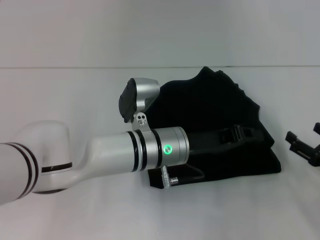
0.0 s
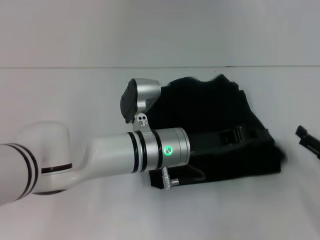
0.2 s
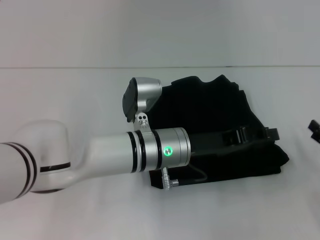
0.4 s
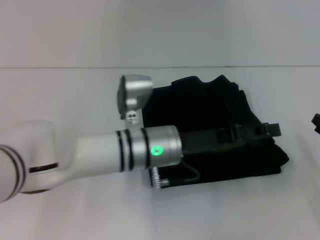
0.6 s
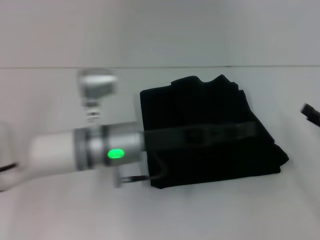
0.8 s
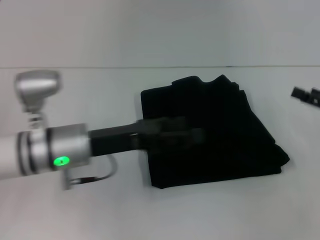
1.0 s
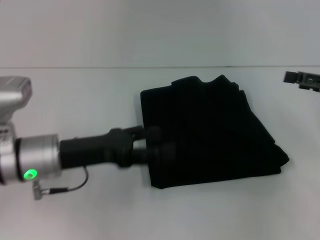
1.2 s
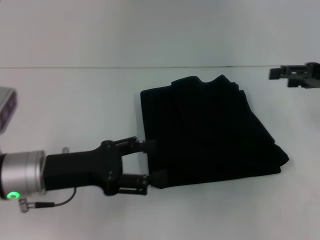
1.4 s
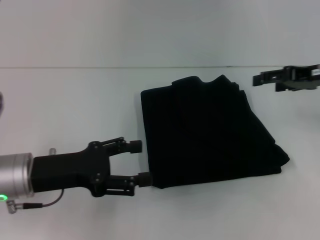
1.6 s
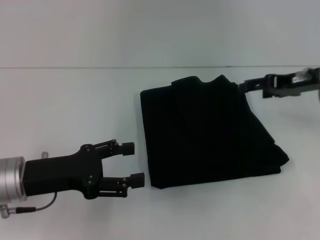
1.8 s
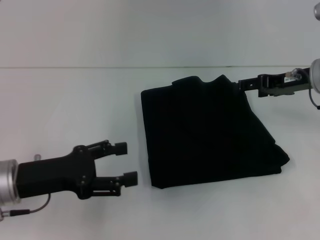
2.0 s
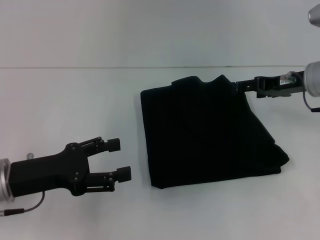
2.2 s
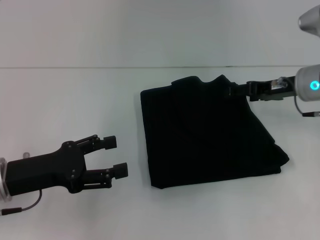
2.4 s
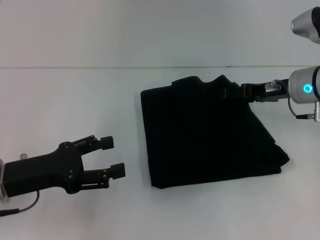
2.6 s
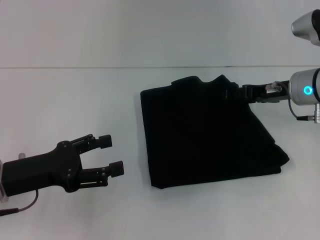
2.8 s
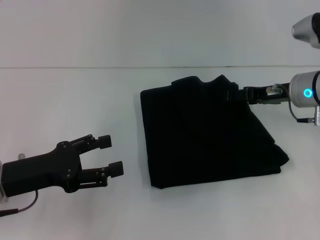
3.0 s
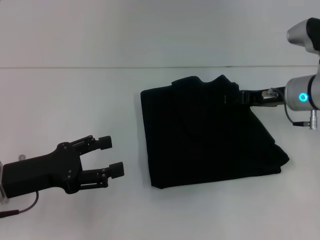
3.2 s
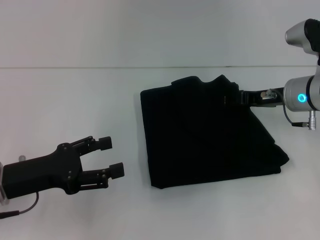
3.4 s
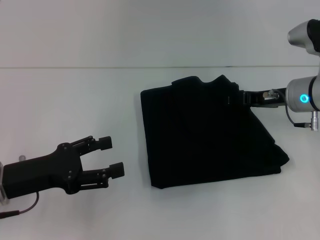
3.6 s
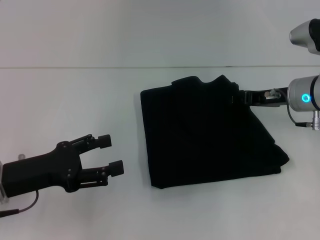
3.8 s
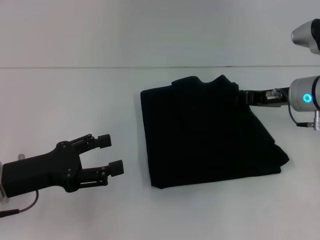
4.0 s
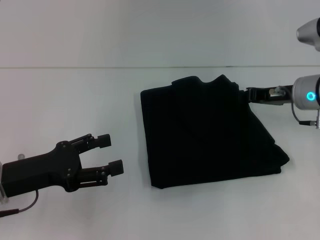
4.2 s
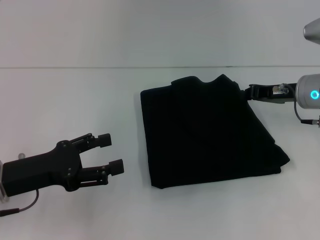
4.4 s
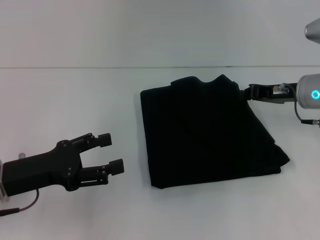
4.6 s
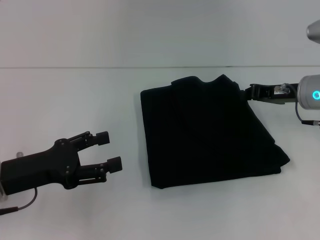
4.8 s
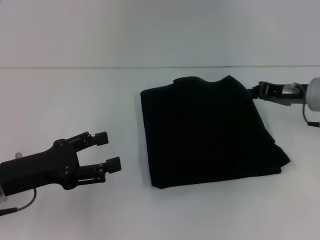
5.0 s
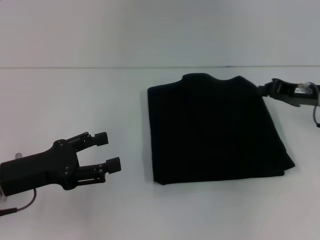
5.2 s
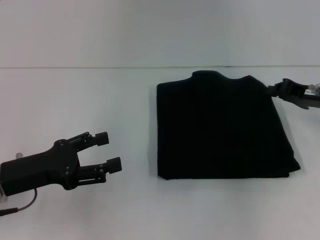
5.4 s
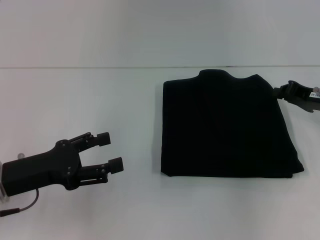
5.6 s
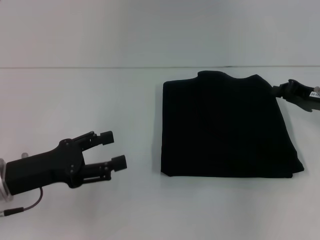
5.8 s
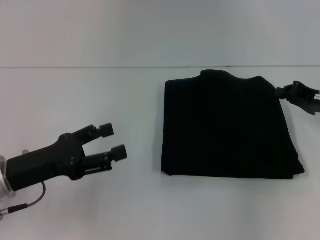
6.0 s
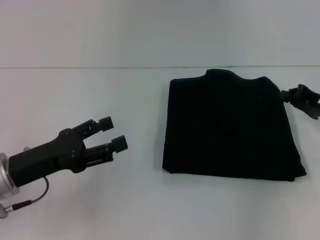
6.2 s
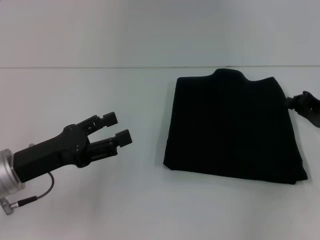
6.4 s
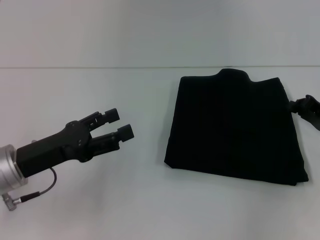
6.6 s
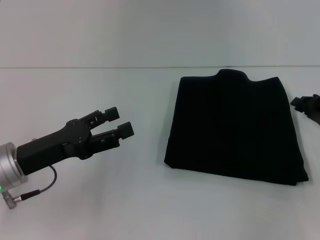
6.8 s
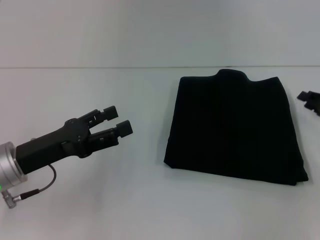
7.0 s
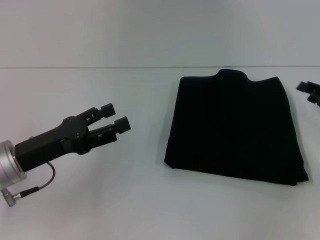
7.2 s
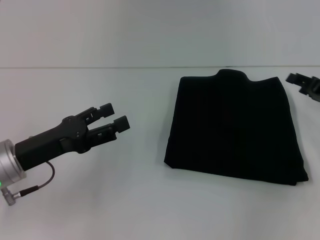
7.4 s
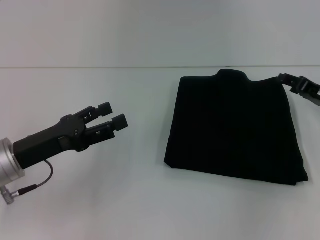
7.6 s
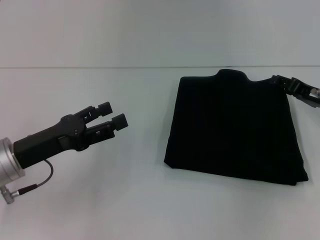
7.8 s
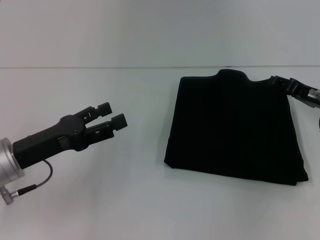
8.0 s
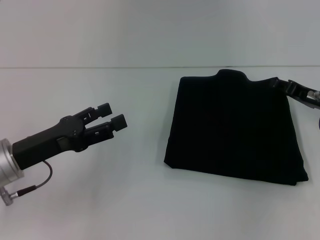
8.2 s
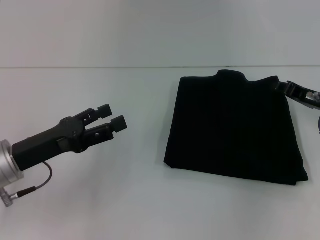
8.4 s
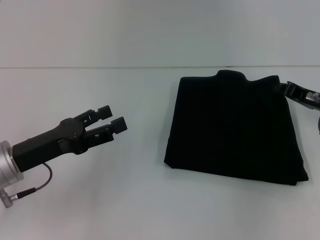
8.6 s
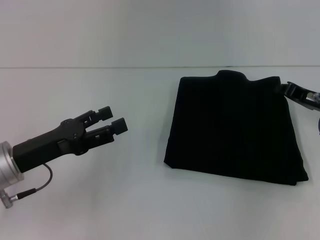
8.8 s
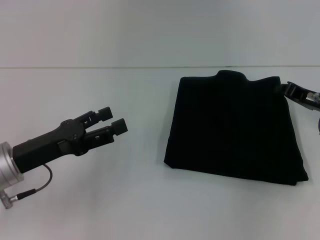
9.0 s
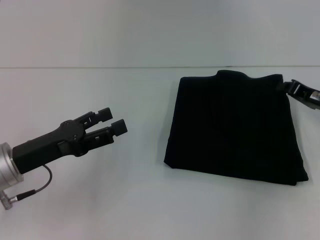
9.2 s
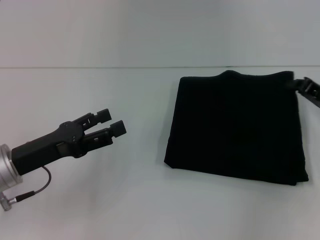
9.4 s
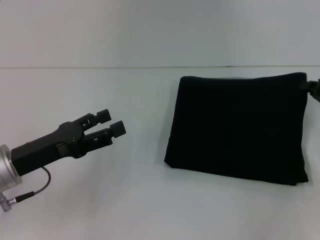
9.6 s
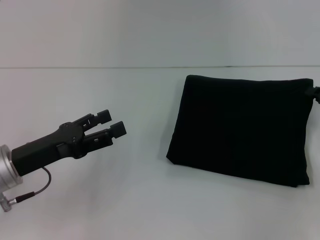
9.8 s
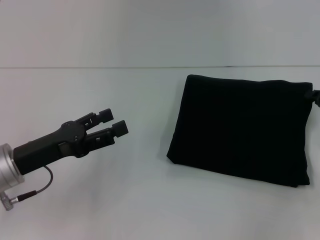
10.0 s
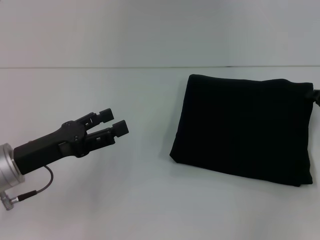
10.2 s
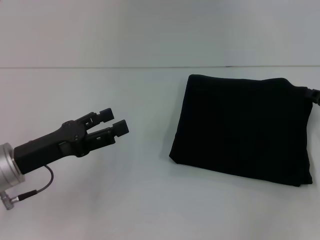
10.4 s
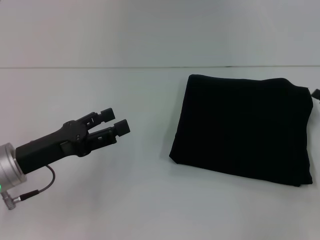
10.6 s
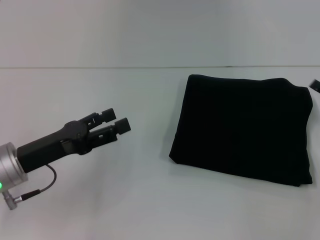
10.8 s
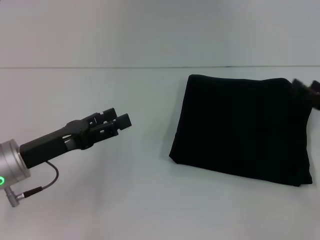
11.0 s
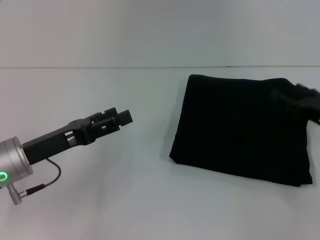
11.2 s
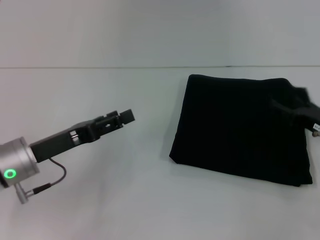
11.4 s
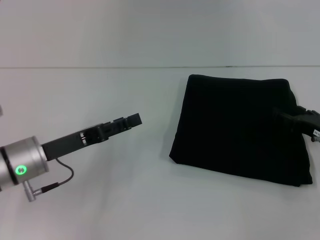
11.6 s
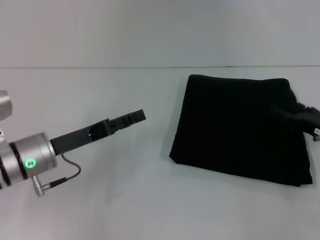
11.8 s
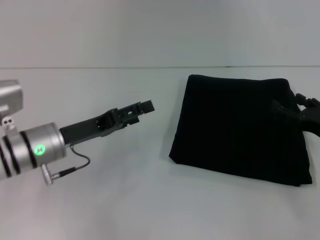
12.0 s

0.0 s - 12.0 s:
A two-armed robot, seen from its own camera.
0.0 s - 1.6 s: The left gripper moves to the left, some 20 cm, and opens its fingers. Meanwhile the right gripper shifts about 20 cm upward and forward.
1.6 s - 3.0 s: The right gripper is displaced to the left and downward by roughly 10 cm.
3.0 s - 4.4 s: The right gripper closes.
4.4 s - 6.0 s: The right gripper heads to the right, covering about 5 cm.
6.0 s - 7.6 s: The right gripper opens up.
7.6 s - 9.0 s: The right gripper closes up.
9.0 s - 10.4 s: The grippers make only small movements.
10.4 s - 12.0 s: The right gripper changes place by approximately 5 cm, and opens its fingers. Meanwhile the left gripper ends up approximately 5 cm from where it was.

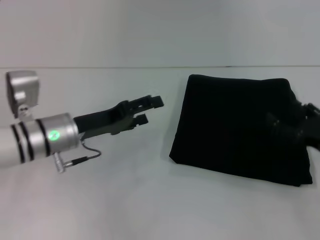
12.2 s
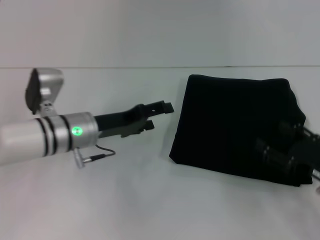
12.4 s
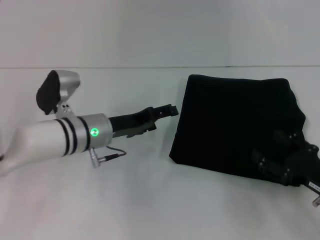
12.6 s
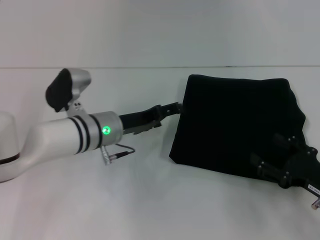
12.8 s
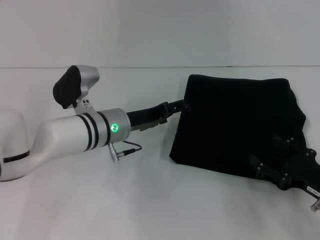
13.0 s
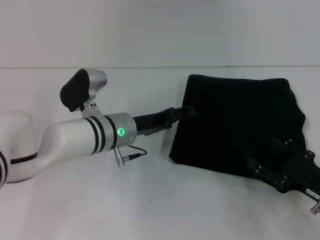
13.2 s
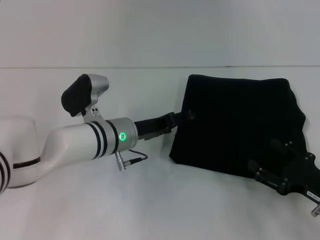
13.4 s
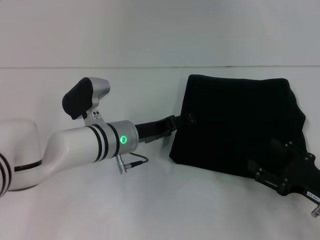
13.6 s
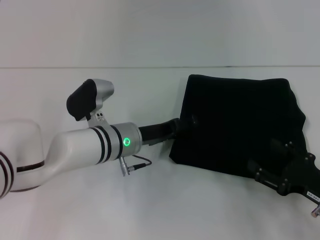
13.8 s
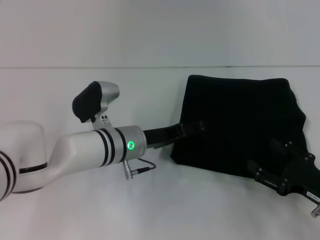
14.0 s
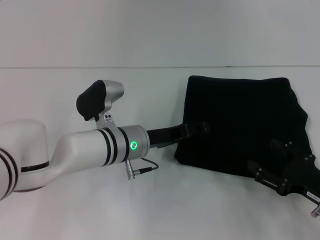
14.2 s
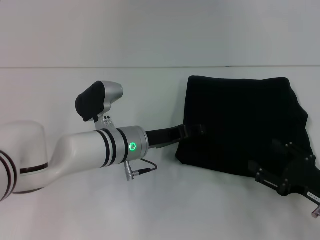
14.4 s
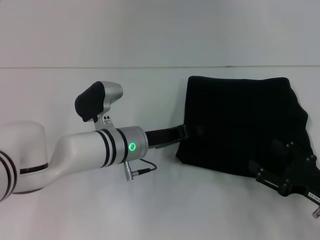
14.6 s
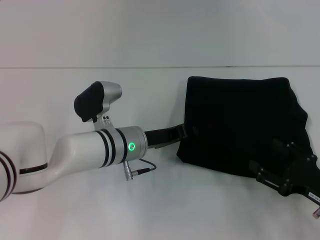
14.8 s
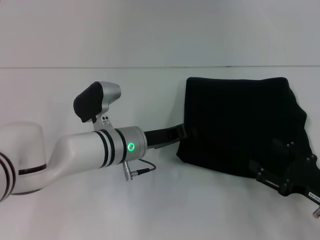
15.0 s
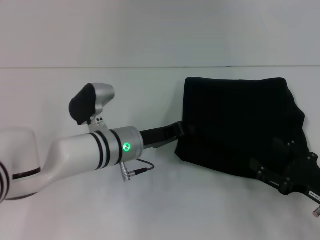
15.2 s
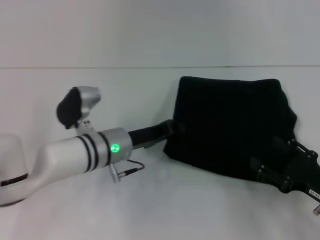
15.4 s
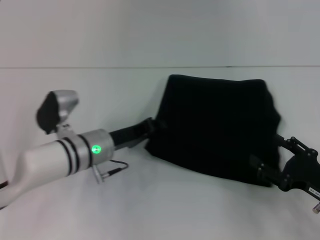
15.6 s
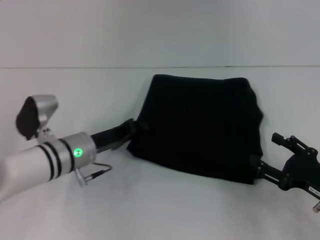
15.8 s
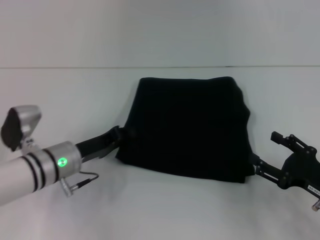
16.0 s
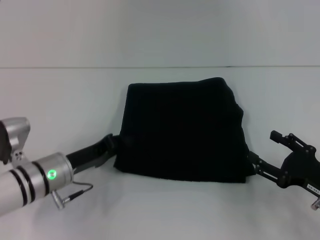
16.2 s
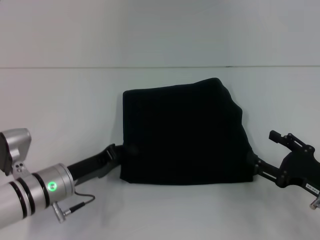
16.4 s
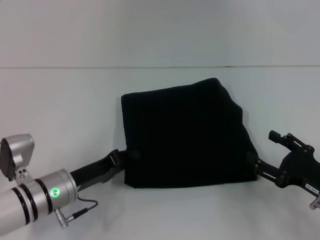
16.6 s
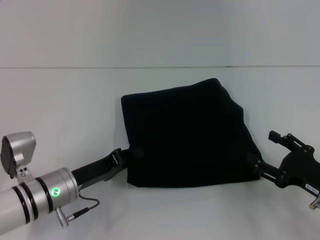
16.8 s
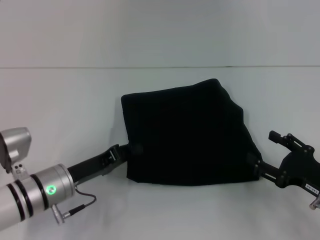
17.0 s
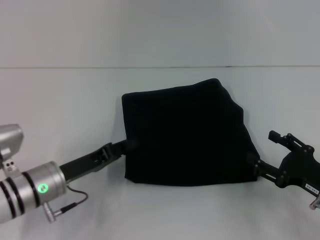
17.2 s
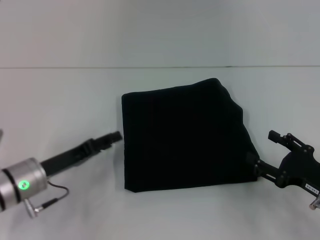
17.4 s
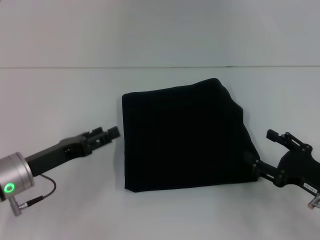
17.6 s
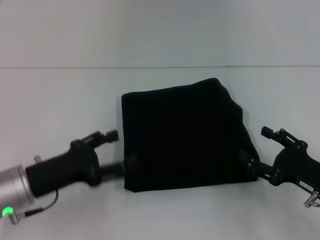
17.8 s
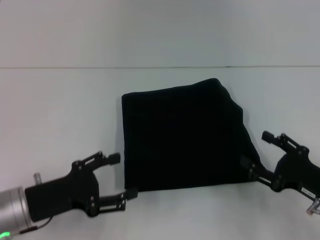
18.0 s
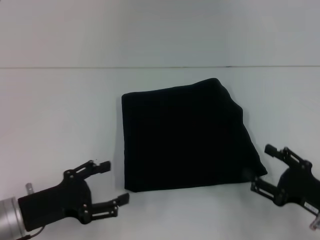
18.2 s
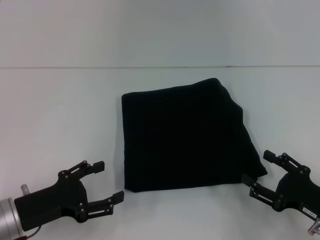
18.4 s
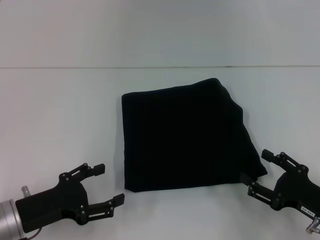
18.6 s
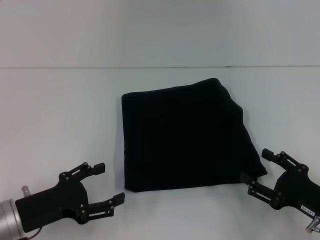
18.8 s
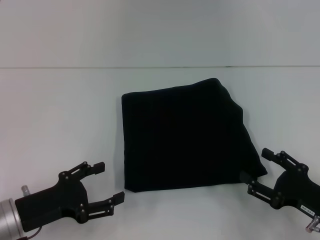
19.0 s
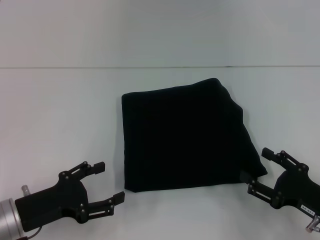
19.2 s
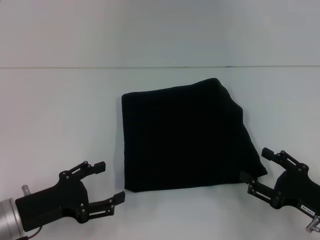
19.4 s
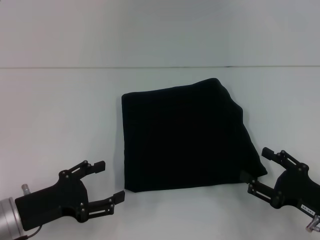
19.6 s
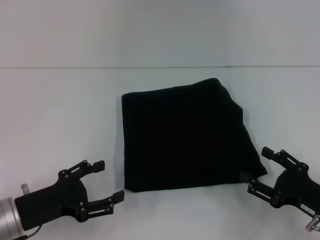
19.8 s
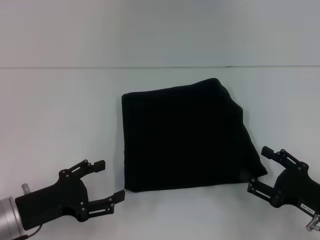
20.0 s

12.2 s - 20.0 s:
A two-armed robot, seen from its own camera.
12.2 s - 13.8 s: The right gripper goes about 5 cm backward; the left gripper travels to the right by roughly 10 cm.
13.8 s - 15.4 s: The left gripper closes its fingers.
15.4 s - 16.8 s: The left gripper moves to the left and backward, about 10 cm.
16.8 s - 18.4 s: The left gripper shifts about 10 cm to the left and backward, and opens its fingers.
18.4 s - 20.0 s: Neither gripper changes place.

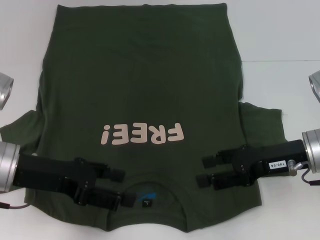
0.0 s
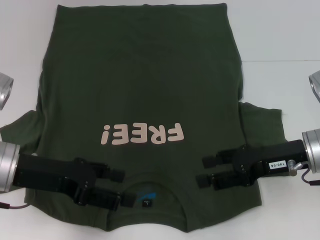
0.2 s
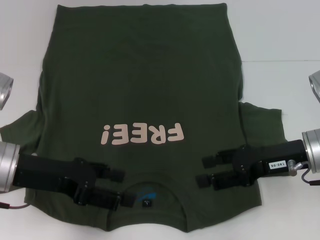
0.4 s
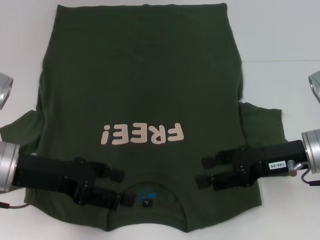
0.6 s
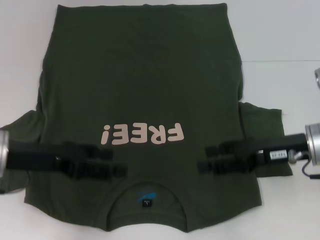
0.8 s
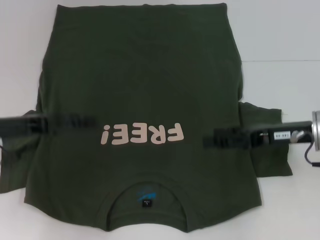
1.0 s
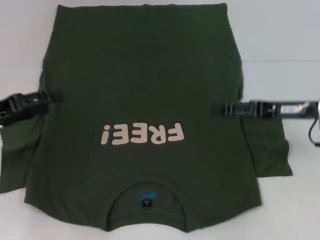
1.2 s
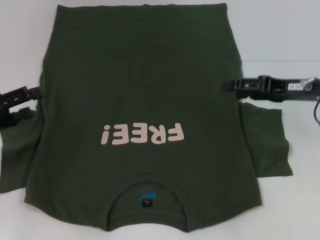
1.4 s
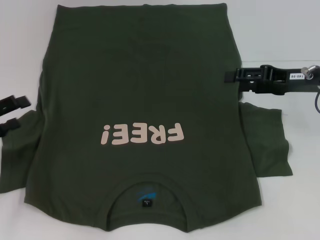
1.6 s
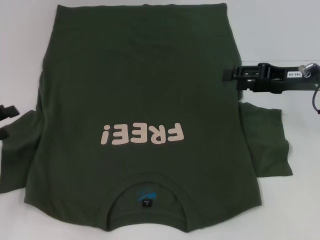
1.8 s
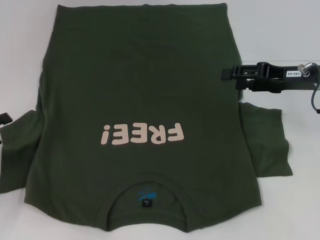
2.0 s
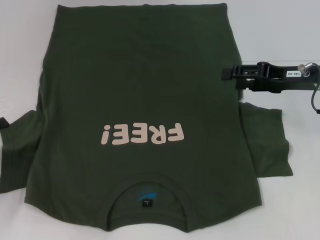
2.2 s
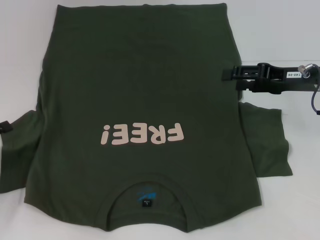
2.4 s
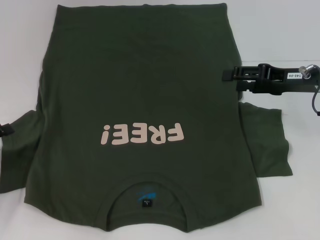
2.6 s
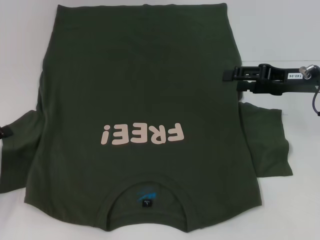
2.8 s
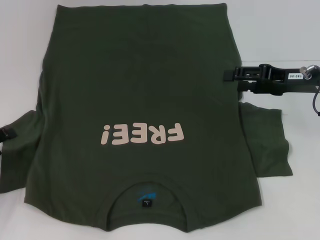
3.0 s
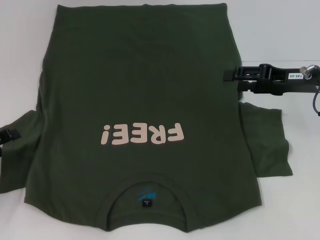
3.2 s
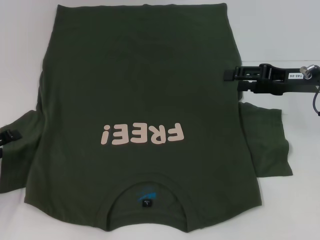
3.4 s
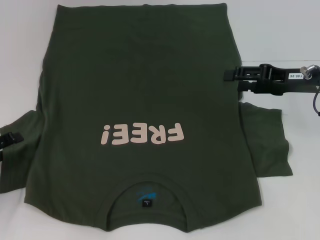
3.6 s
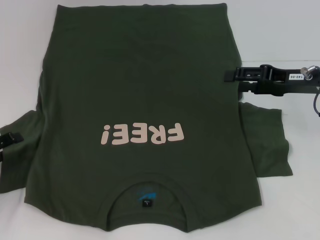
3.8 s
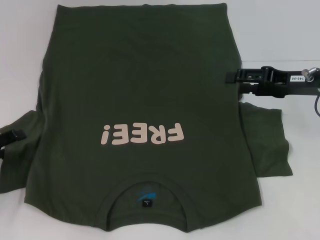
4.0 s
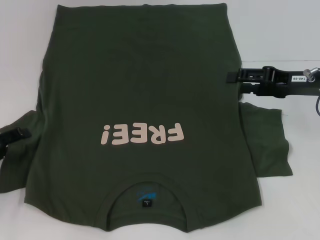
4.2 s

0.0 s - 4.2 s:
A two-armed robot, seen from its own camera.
0.0 s - 1.4 s: The left gripper travels to the left by approximately 10 cm. Meanwhile the right gripper shifts roughly 5 cm forward.
1.4 s - 2.8 s: The left gripper shifts some 5 cm downward.
2.8 s - 4.2 s: The grippers move only a little.
